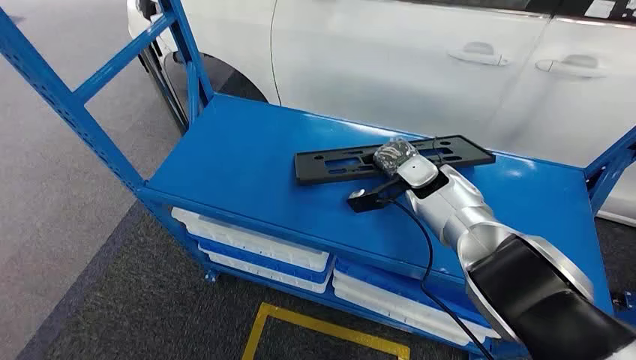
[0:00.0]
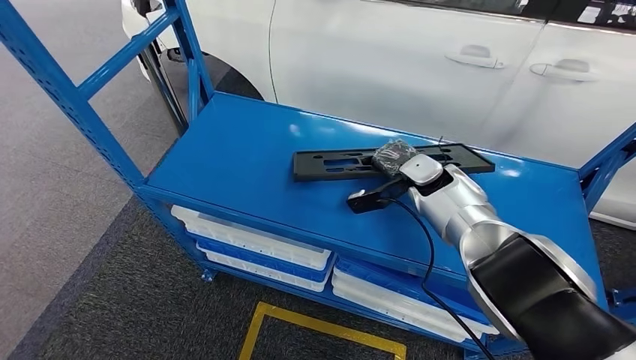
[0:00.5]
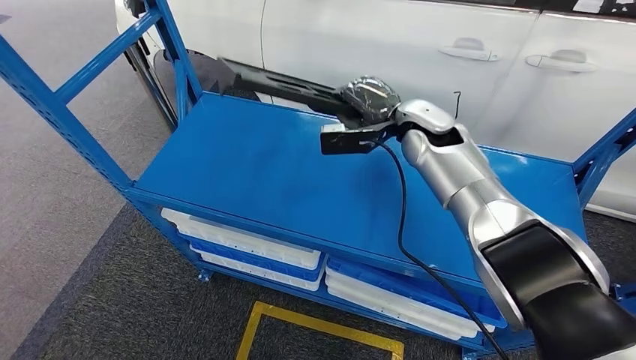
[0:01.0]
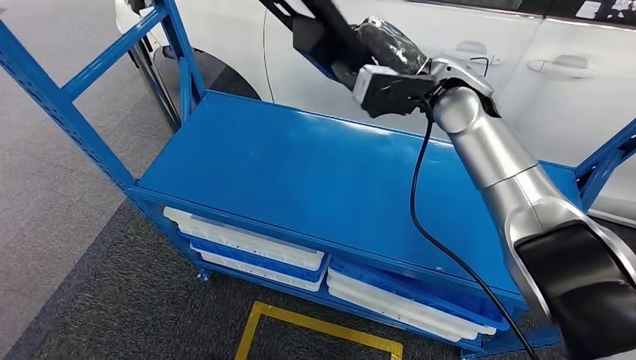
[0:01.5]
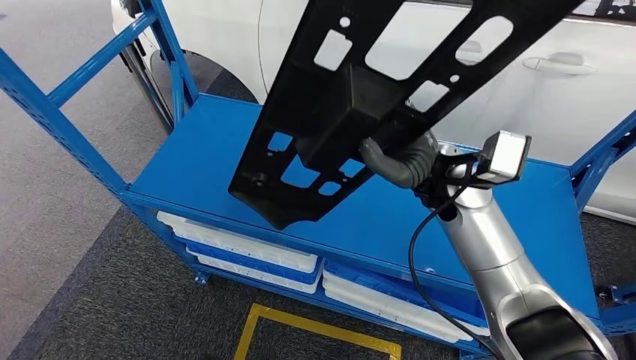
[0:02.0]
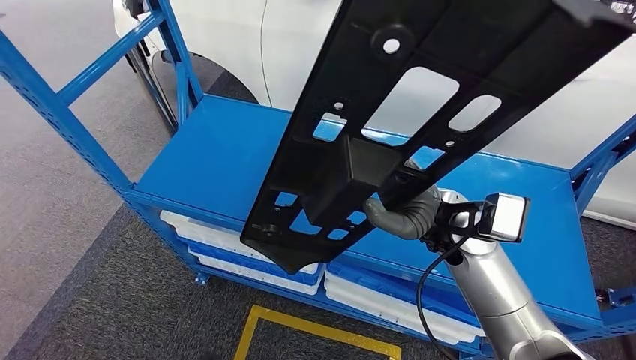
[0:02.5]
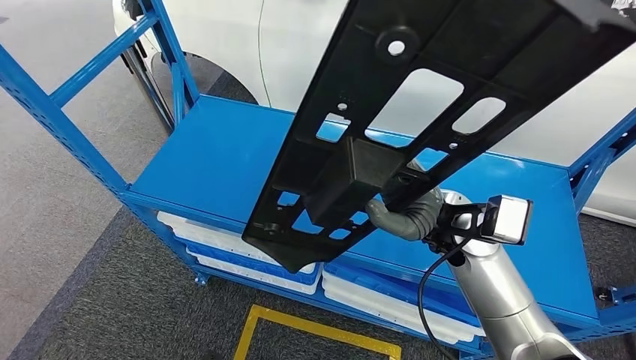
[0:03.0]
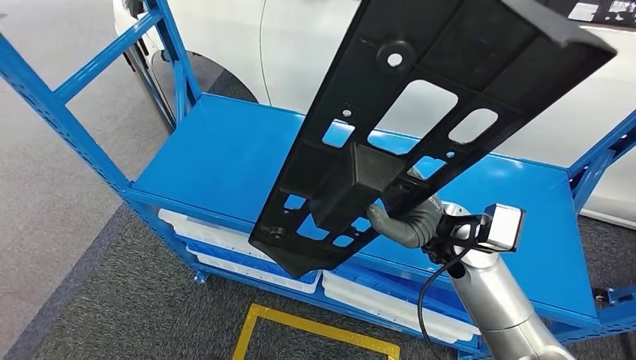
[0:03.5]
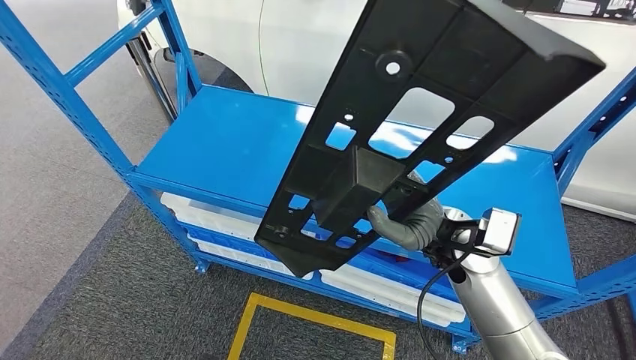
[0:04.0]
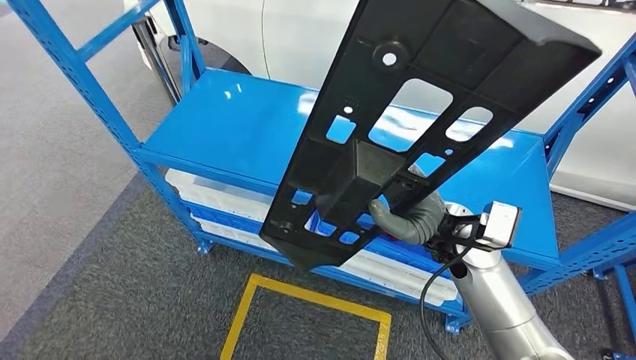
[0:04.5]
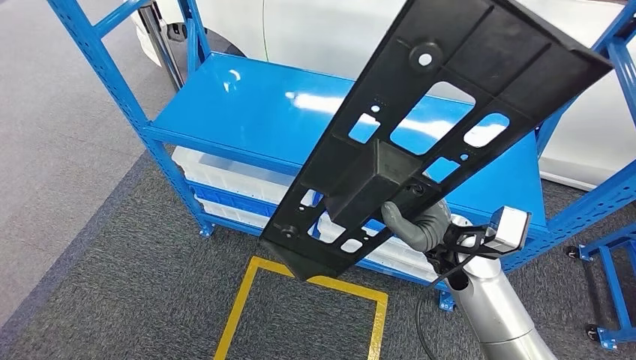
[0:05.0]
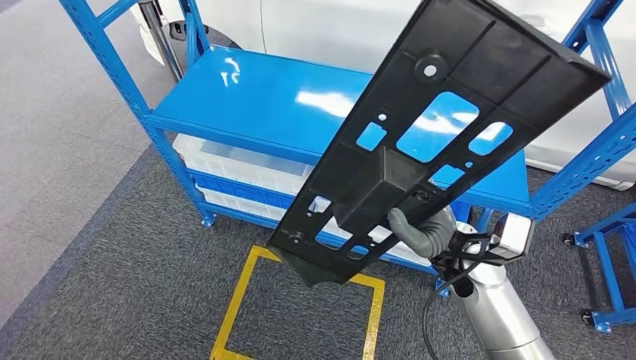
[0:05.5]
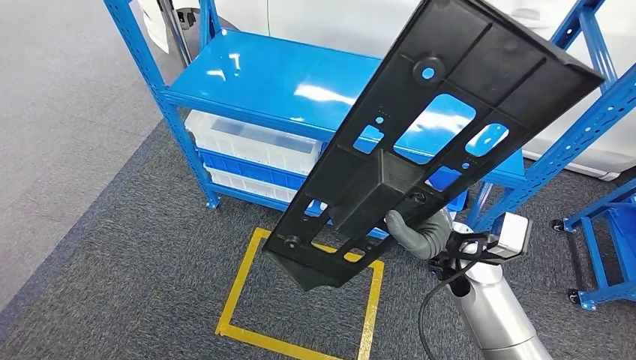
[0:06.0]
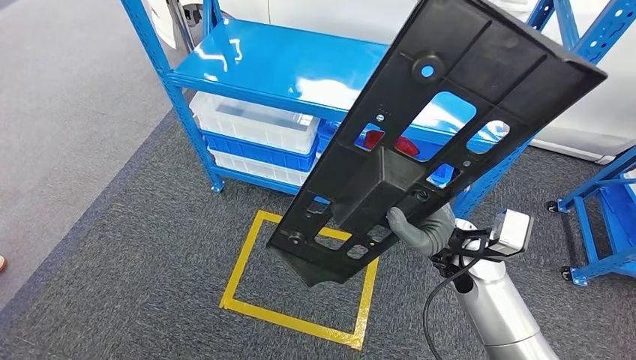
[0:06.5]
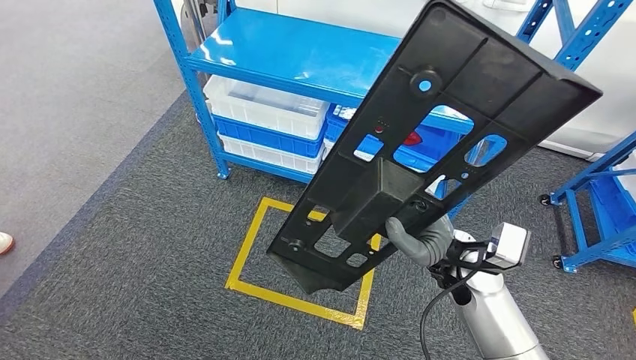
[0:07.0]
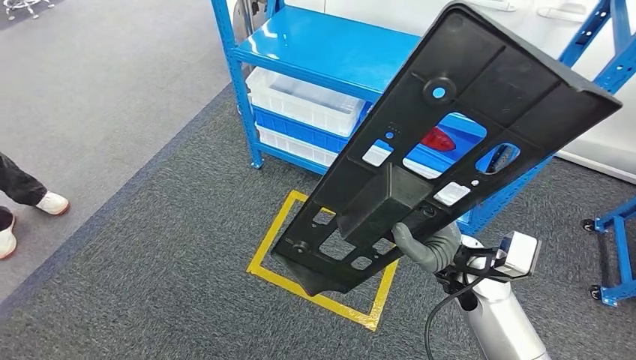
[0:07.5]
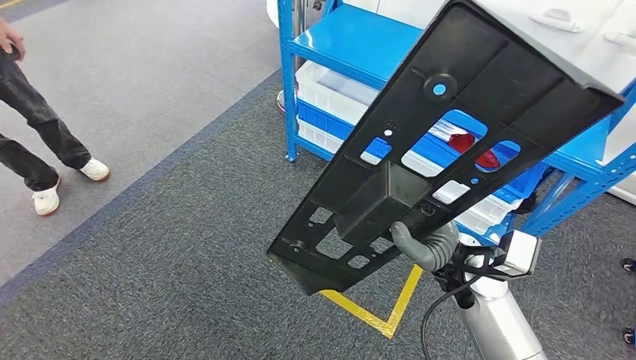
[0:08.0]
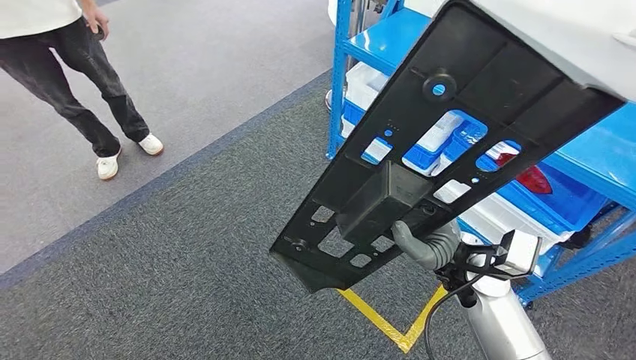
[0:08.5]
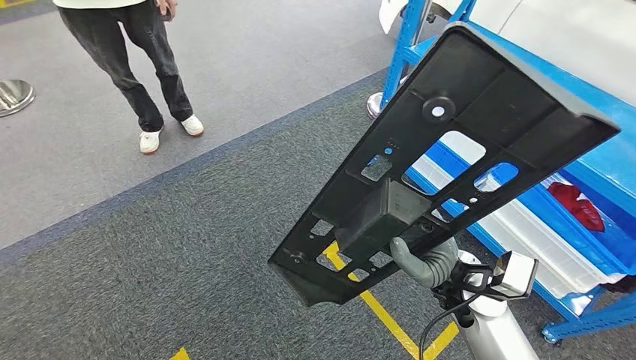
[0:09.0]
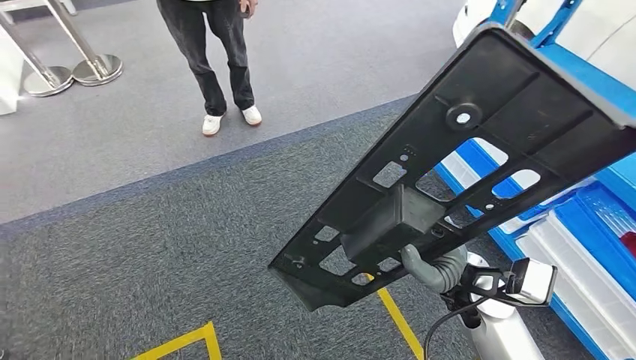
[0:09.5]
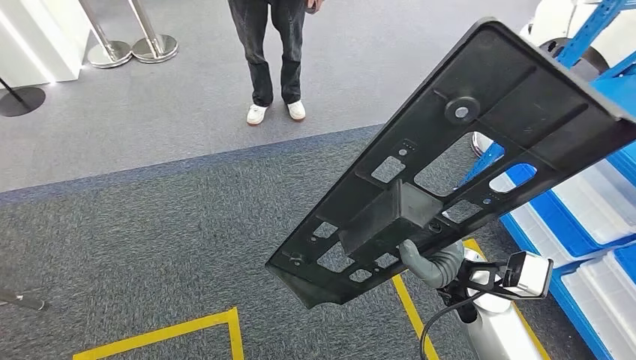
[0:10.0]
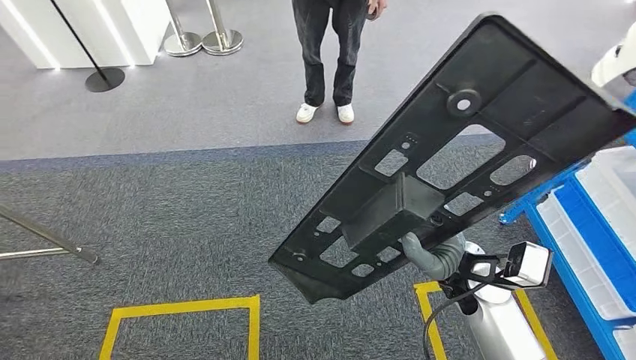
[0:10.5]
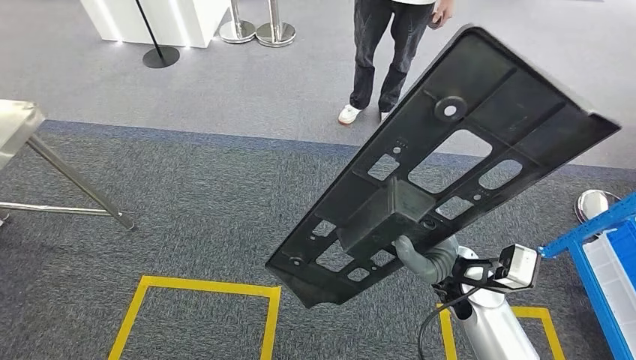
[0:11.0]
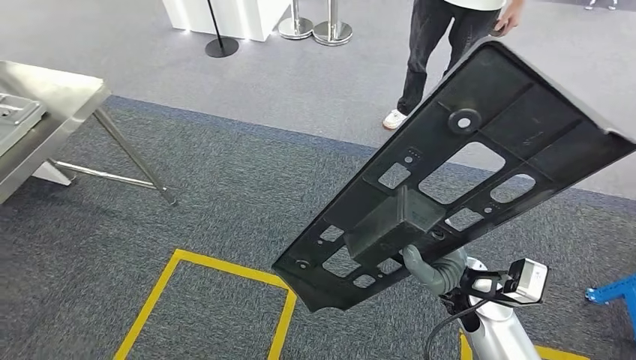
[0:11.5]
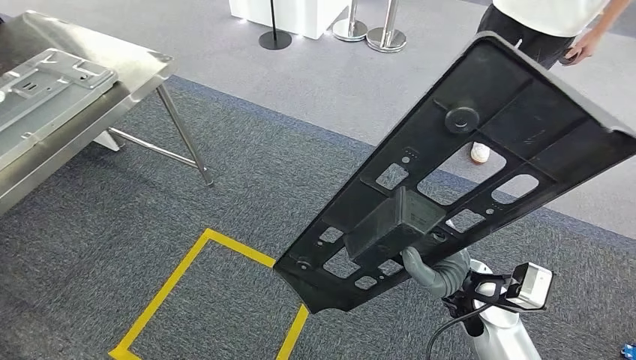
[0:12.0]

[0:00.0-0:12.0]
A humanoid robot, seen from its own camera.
Step, 0:00.0 to 0:02.0: Pick up the large material from the shelf.

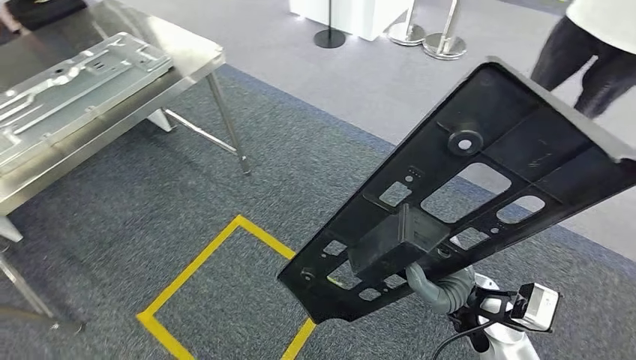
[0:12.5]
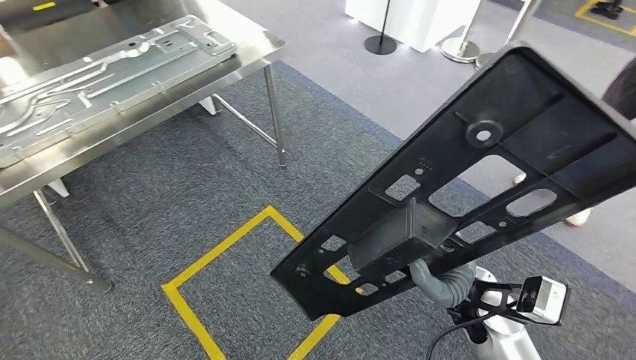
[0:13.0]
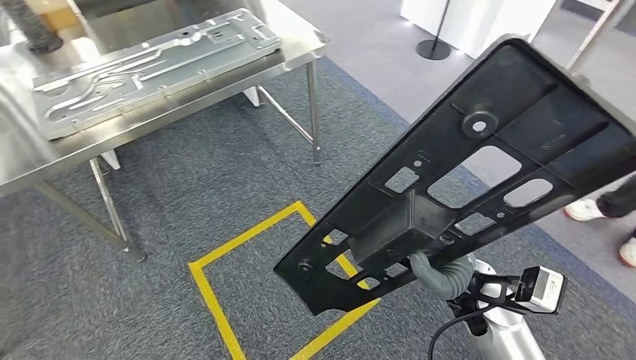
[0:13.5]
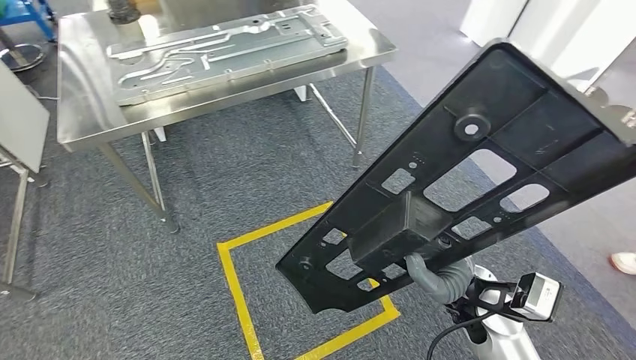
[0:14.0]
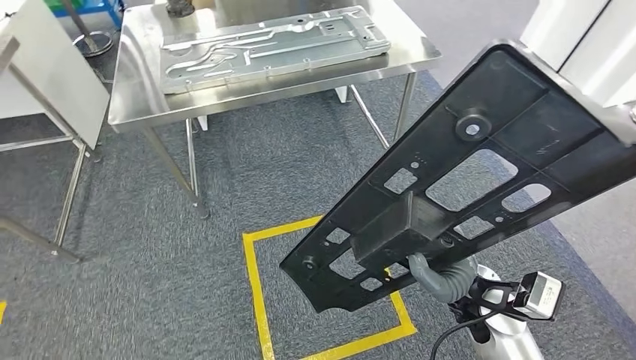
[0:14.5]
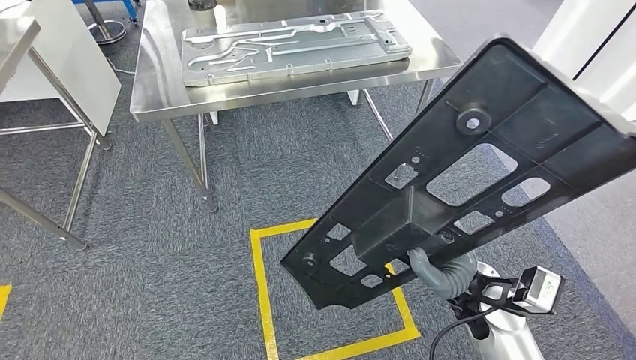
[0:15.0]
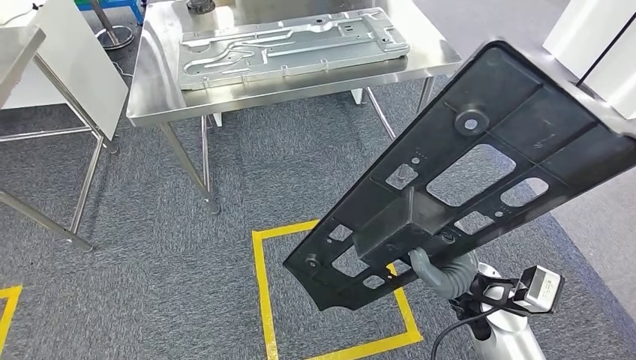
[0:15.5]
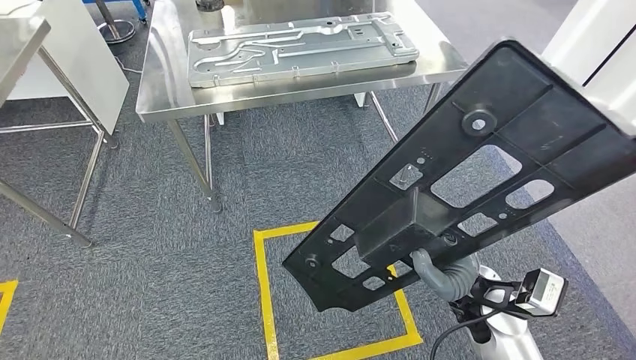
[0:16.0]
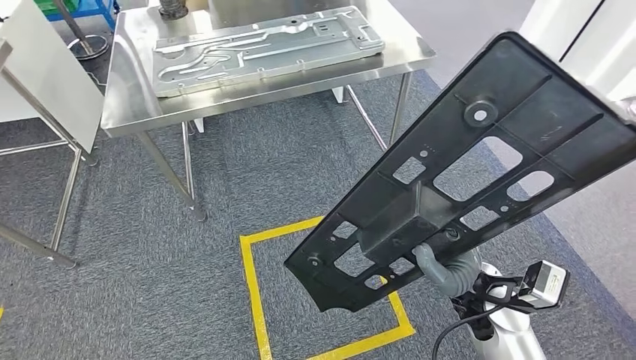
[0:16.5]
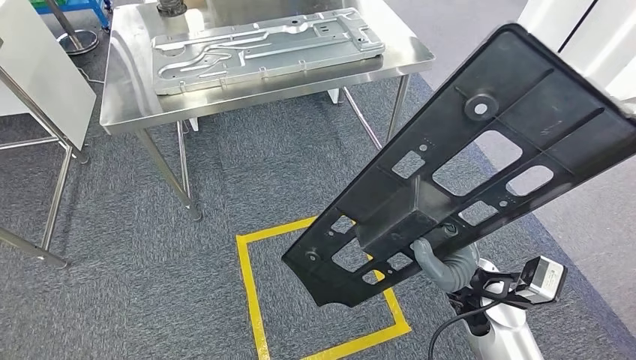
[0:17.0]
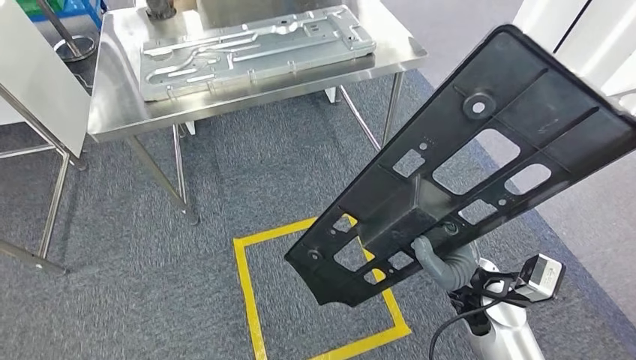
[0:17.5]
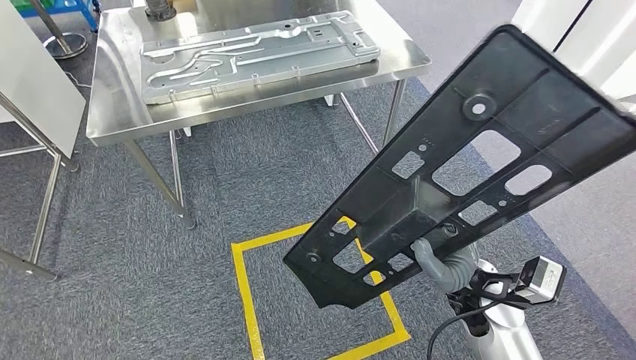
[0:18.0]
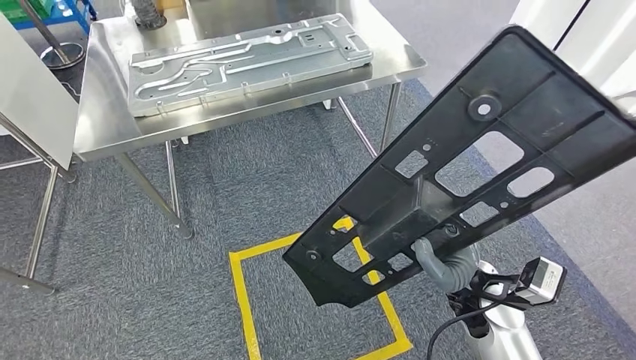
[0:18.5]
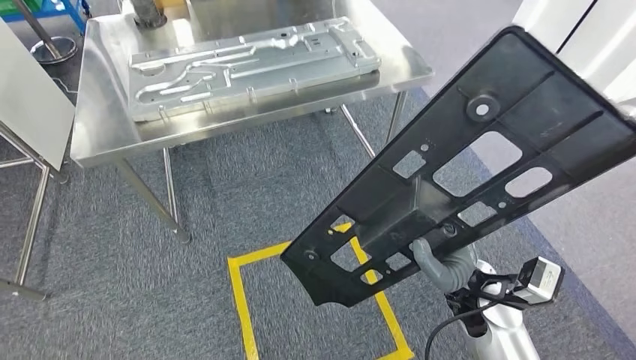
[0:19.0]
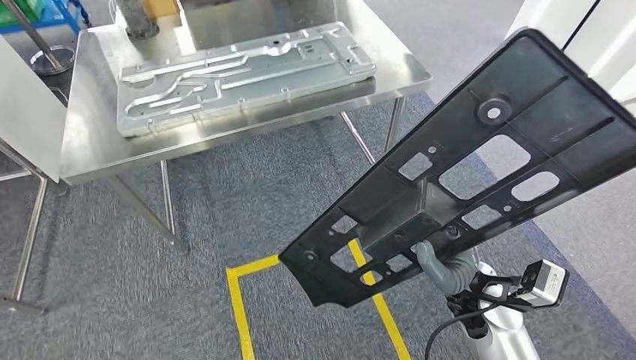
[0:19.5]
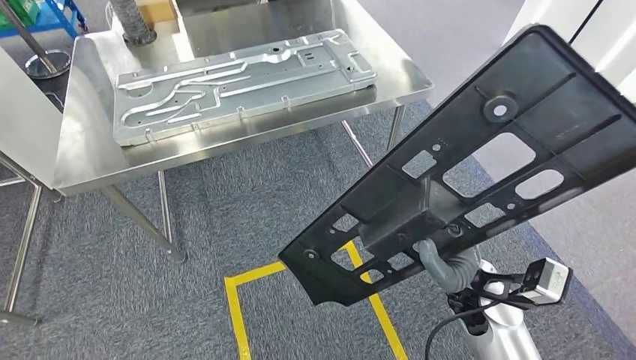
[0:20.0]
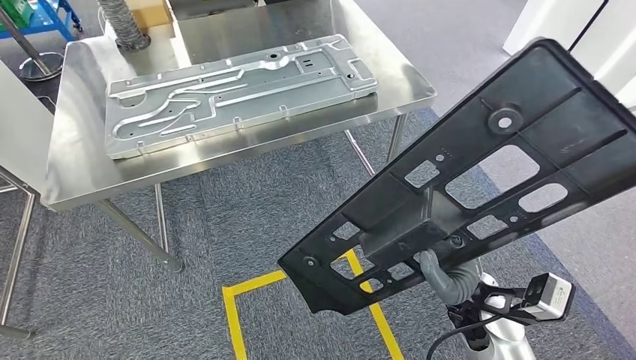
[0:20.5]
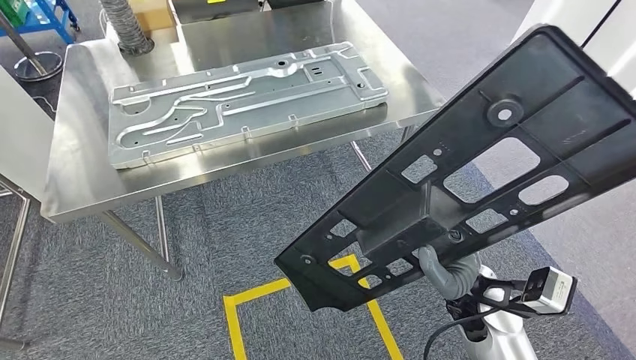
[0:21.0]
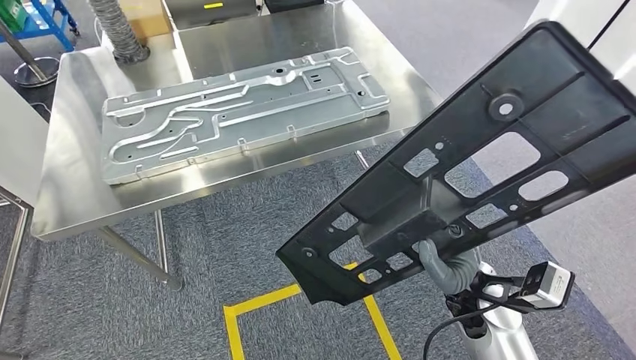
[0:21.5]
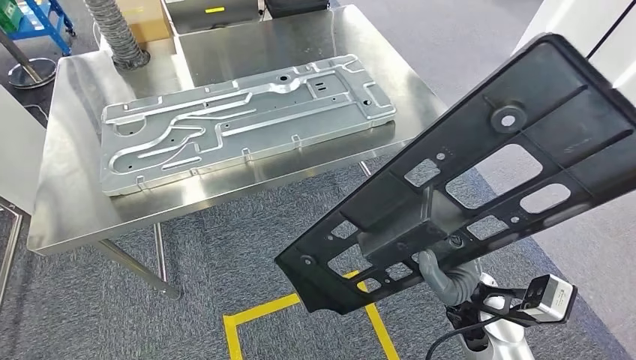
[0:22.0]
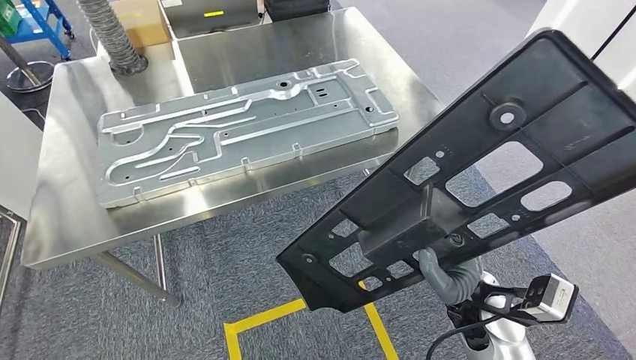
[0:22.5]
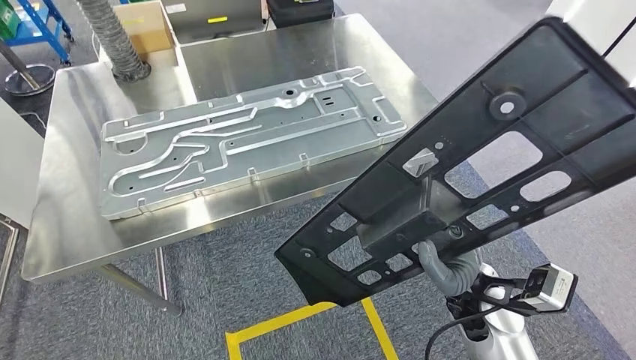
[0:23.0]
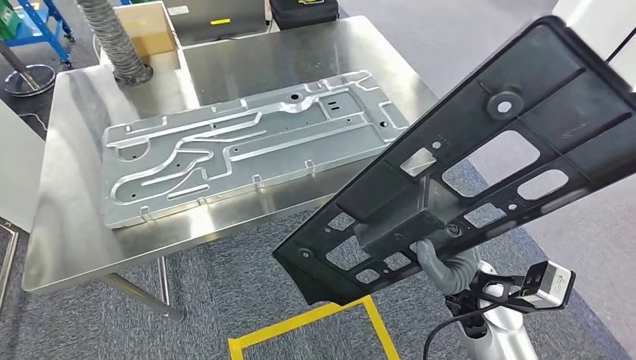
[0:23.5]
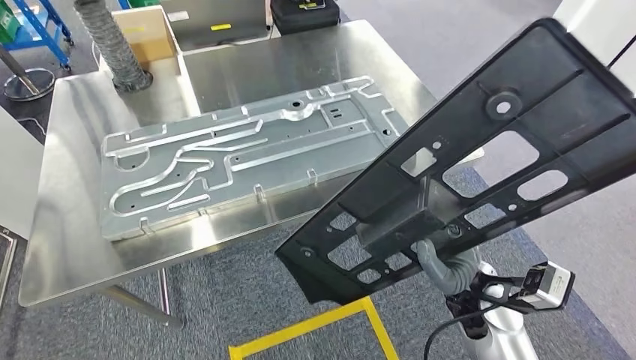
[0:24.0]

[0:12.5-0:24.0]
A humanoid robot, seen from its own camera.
0:14.5 to 0:16.5: The two hands keep their place.
